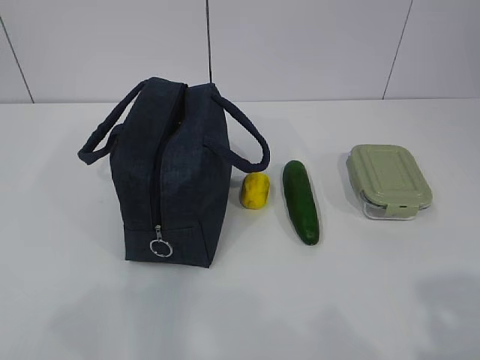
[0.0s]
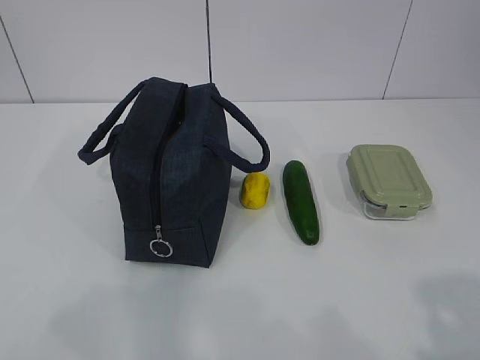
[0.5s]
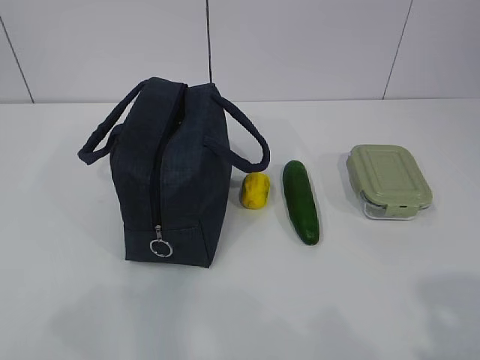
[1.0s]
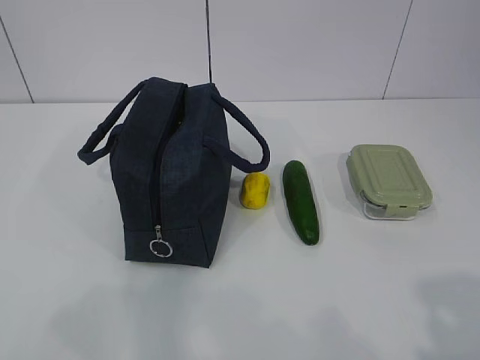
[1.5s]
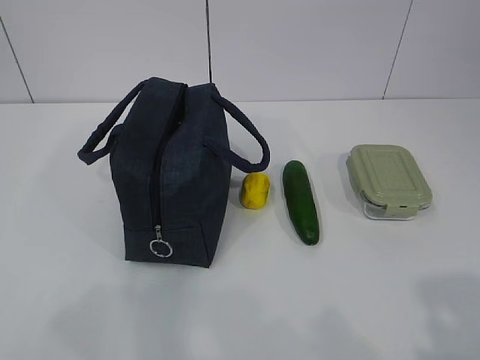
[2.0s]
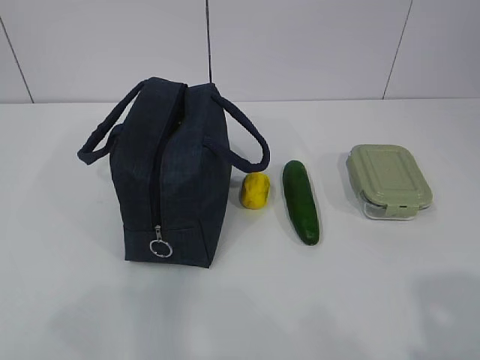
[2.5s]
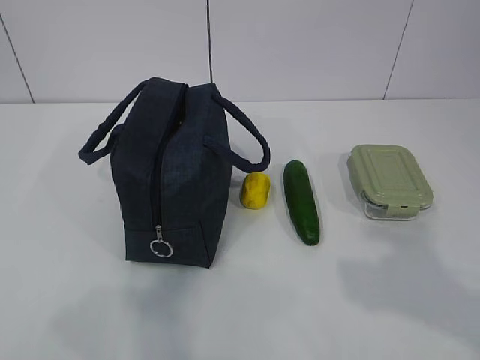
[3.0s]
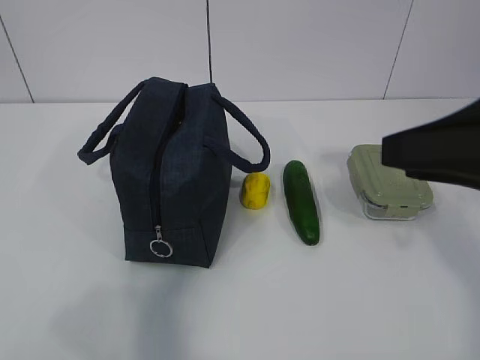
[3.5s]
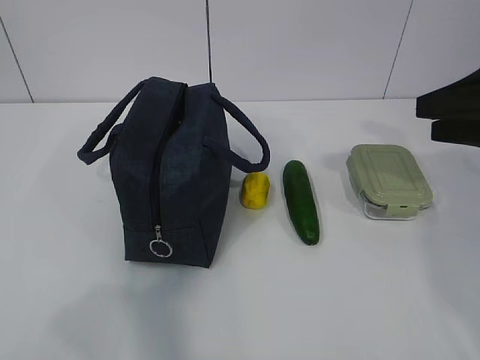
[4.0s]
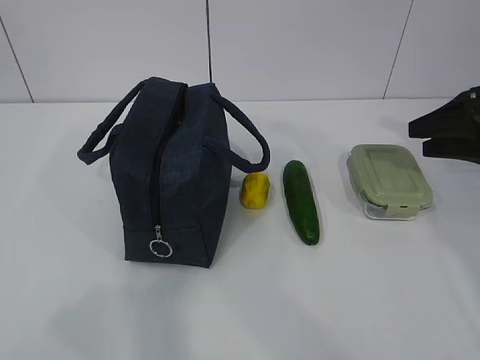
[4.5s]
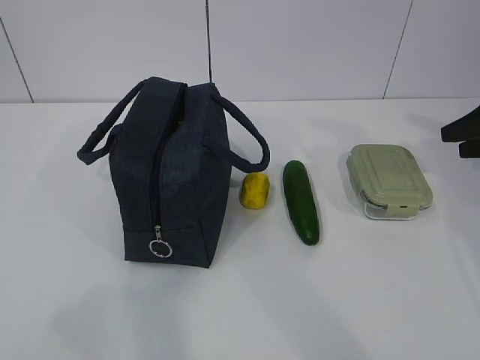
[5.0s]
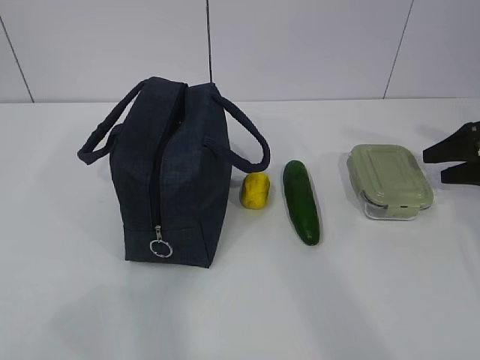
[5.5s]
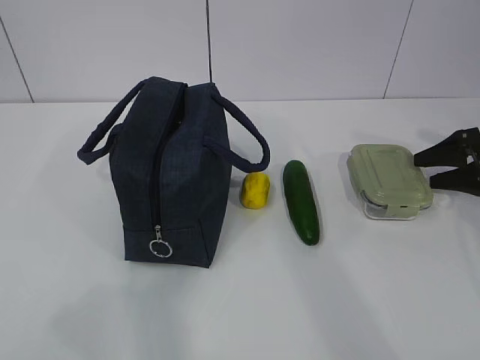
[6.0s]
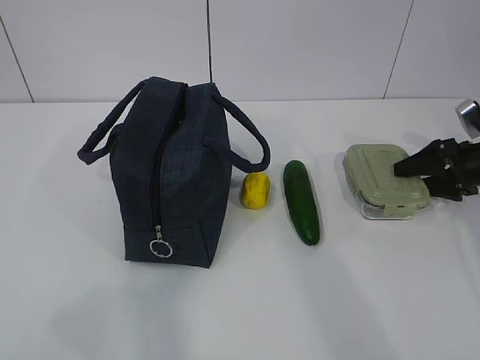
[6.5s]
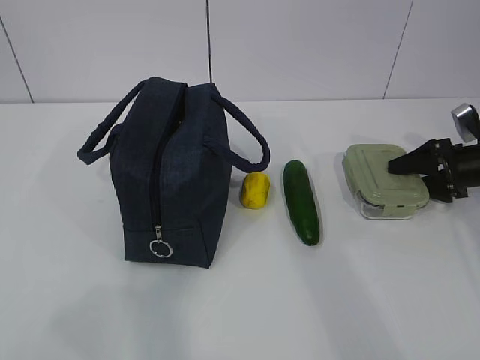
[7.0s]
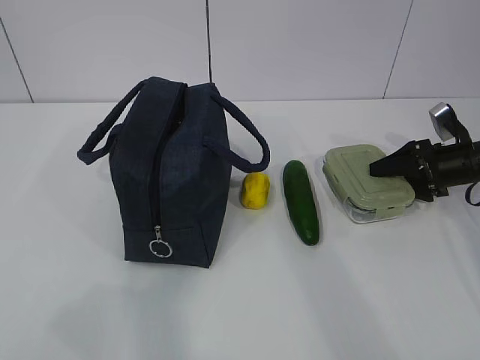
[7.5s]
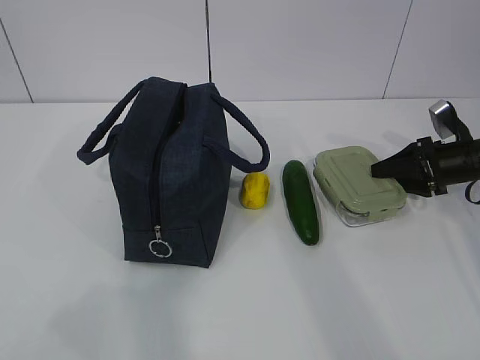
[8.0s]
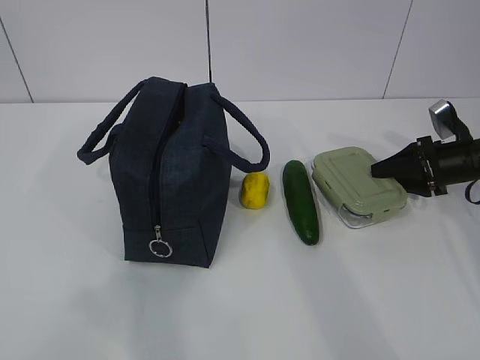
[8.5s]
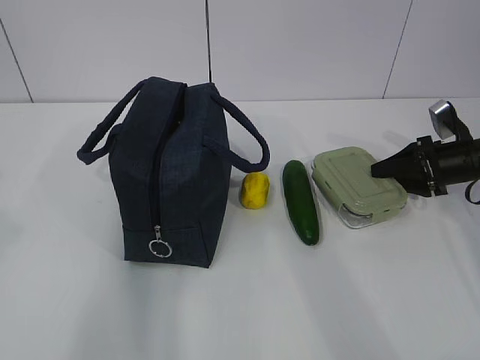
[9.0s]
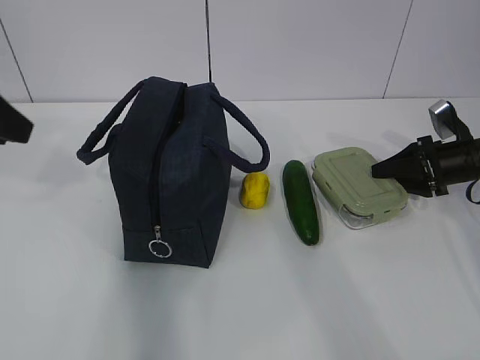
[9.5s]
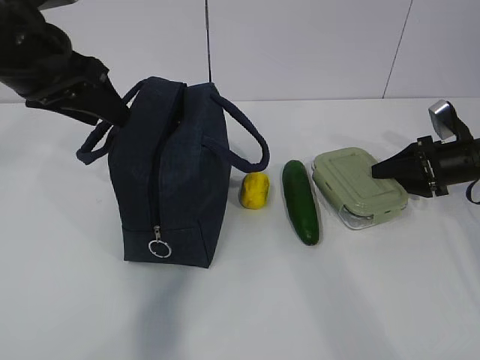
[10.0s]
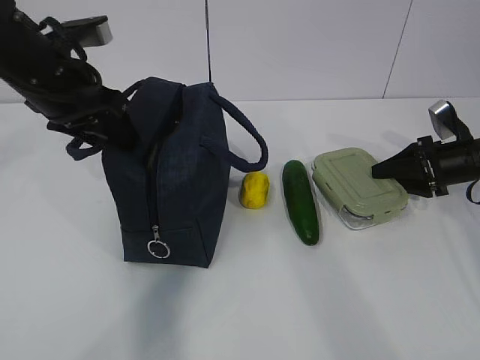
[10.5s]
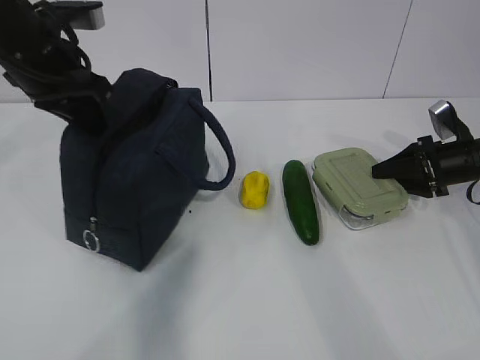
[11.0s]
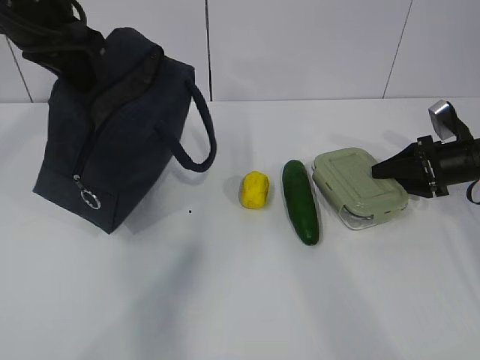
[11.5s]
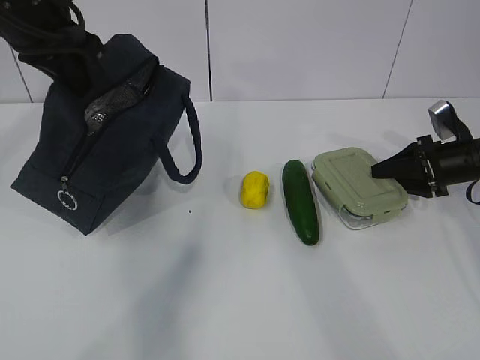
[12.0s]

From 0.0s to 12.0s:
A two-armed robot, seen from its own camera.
Step, from 0.0s to 10.5s: Grab the lunch box with your right hand.
From 2.0s to 4.0s: The right gripper goes approximately 30 cm forward.
From 4.0s to 6.0s: The right gripper travels downward, forward and to the right by about 25 cm.
From 6.0s to 8.0s: The right gripper shifts about 5 cm to the left, and closes up.
From 8.0s to 10.0s: The left gripper travels forward by roughly 35 cm, and opens up.
From 10.0s to 12.0s: The left gripper ends up roughly 5 cm from where it was, and closes up.

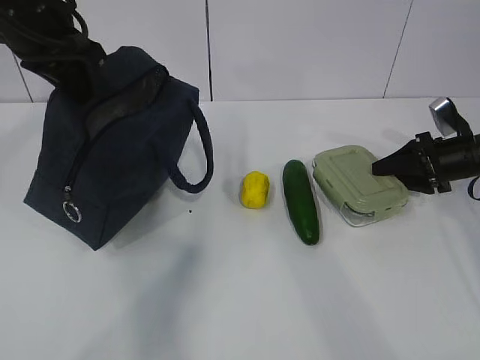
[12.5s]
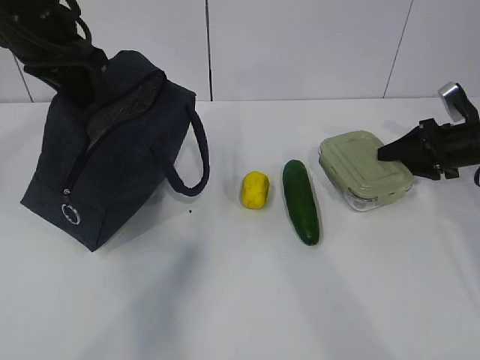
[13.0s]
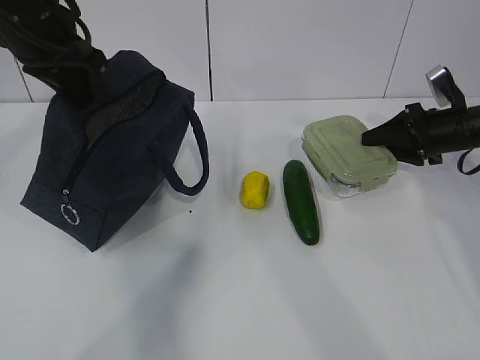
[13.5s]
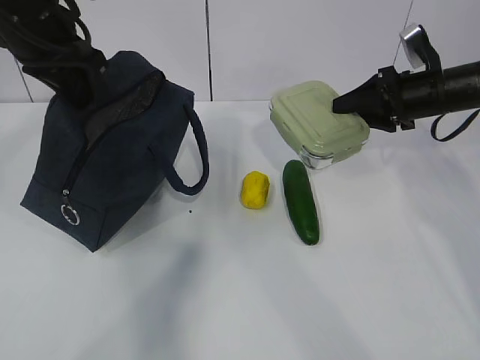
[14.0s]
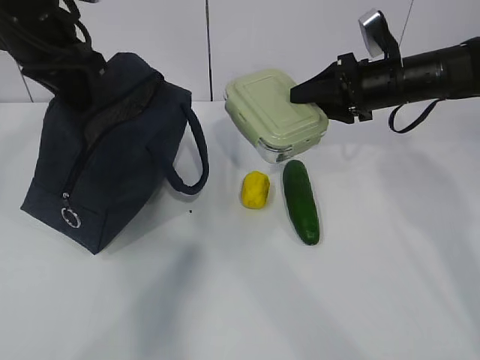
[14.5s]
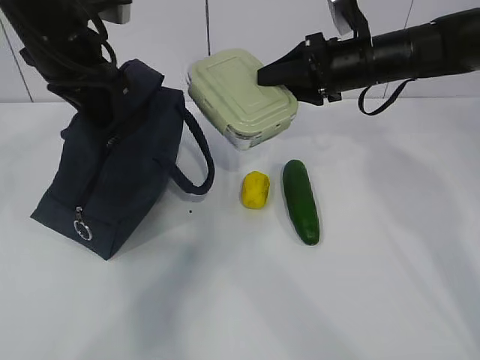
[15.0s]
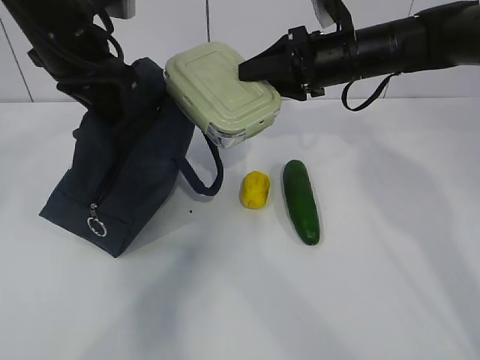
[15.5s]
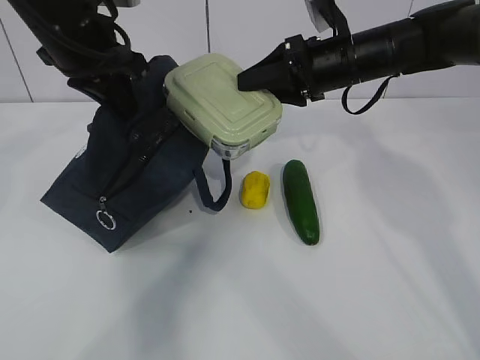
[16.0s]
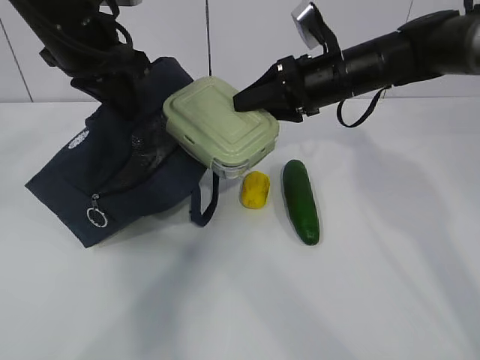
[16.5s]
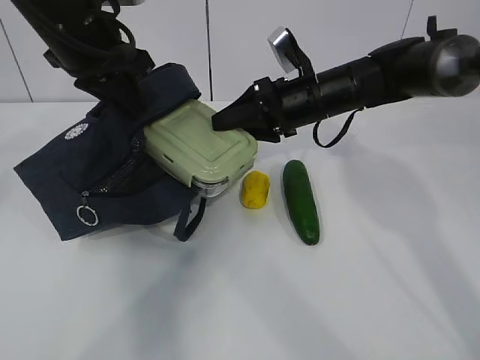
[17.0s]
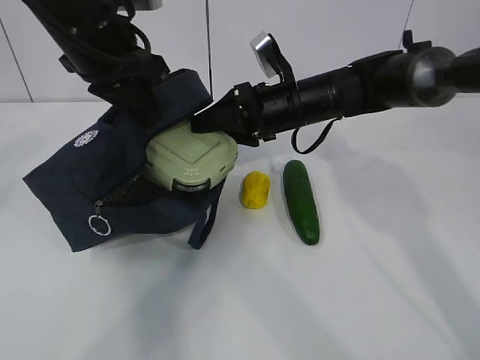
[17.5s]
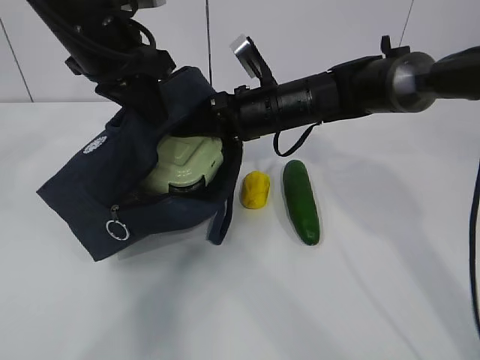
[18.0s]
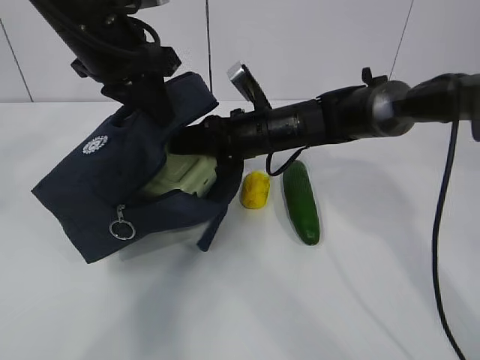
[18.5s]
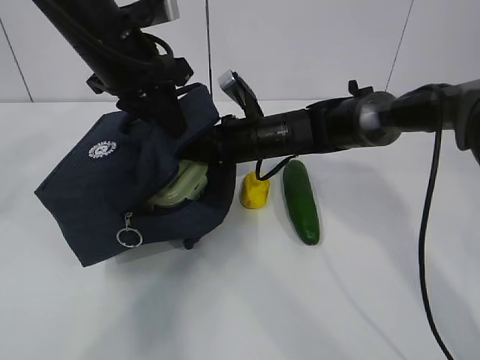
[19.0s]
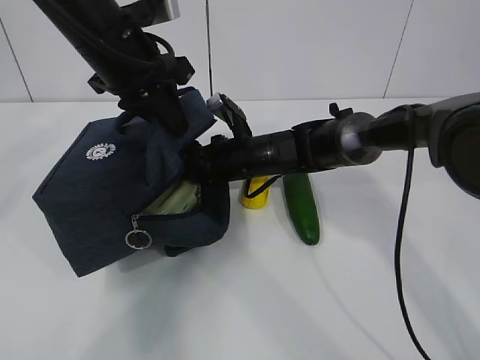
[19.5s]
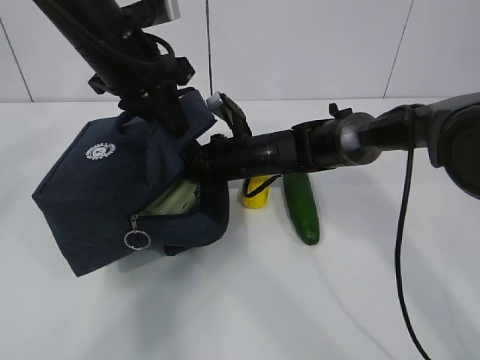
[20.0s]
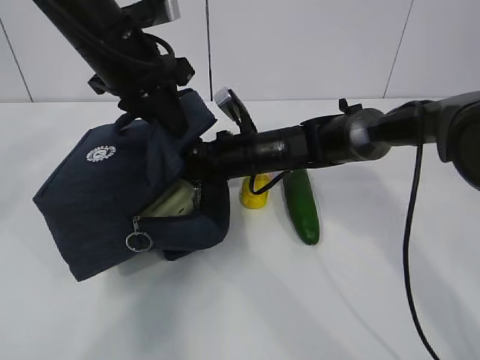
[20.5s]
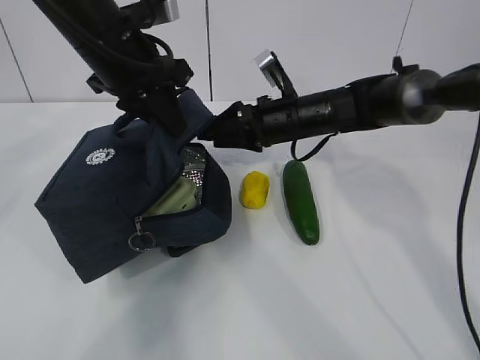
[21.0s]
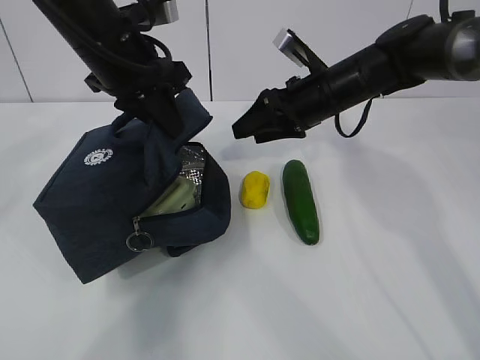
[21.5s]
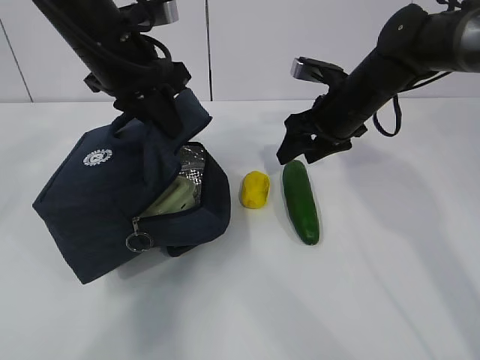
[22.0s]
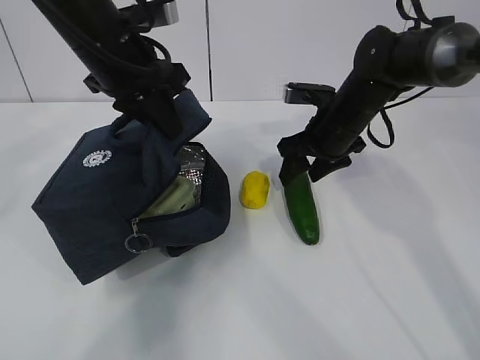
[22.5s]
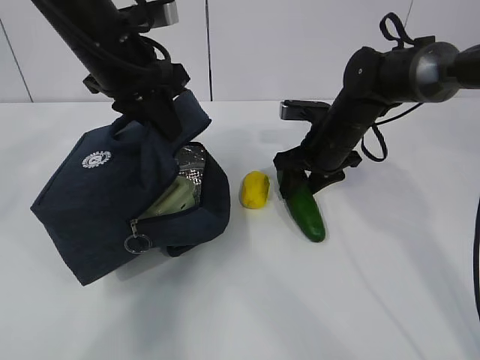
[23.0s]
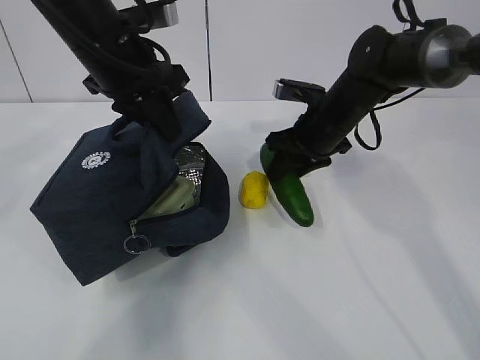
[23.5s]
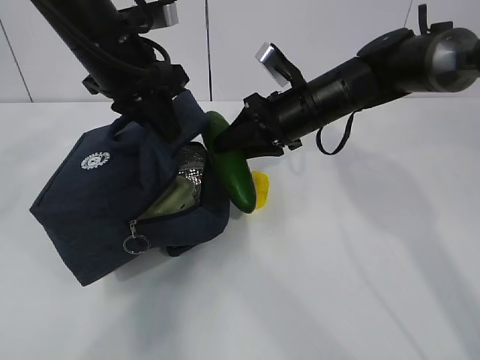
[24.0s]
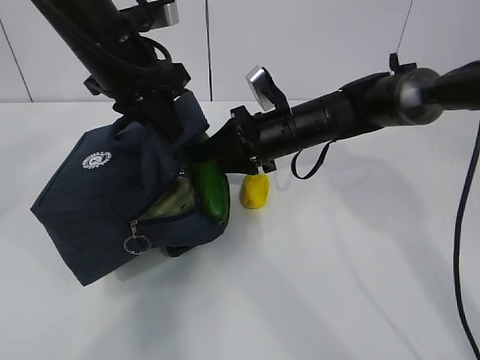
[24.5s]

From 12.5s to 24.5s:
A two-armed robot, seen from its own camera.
Step, from 13.5s to 17.0s: Place it into the bag with your right hand.
Step, from 17.5s to 19.0s: Grab the cucumber with your right hand.
Step, from 19.5s to 21.0s: Place it into the bag with your right hand.
Step, from 21.5s to 24.5s: Grab the lemon with your right hand.
From 12.5s to 14.5s: The right gripper goes roughly 15 cm to the left and upward.
From 14.5s to 16.5s: The right gripper heads to the left, covering about 10 cm.
From 16.5s to 18.5s: The right gripper moves to the left and downward, approximately 10 cm.
From 18.5s to 20.5s: The grippers move only a little.
From 20.5s to 22.5s: The right gripper goes about 10 cm to the right.
From 22.5s to 24.5s: The right gripper shifts about 5 cm to the left.

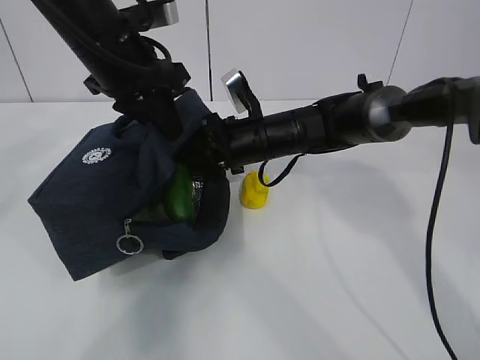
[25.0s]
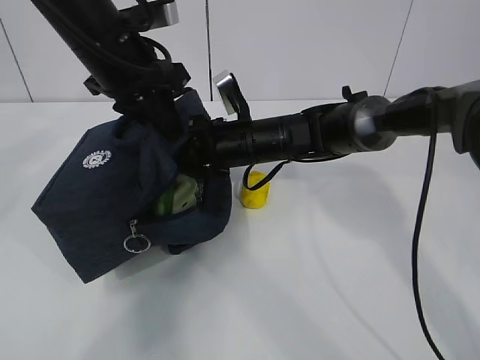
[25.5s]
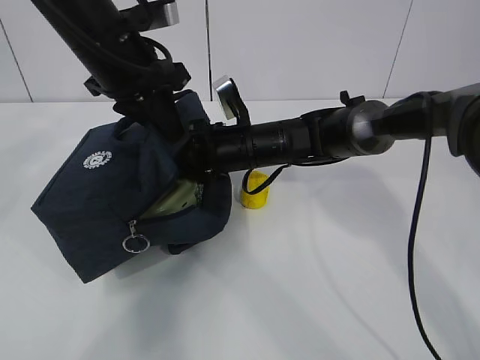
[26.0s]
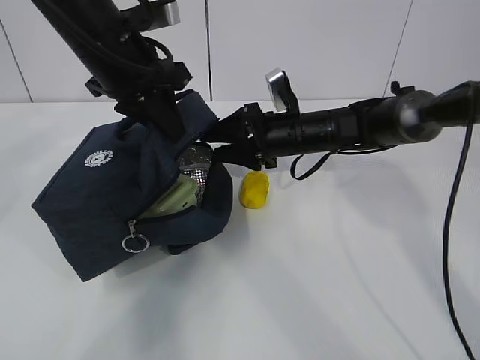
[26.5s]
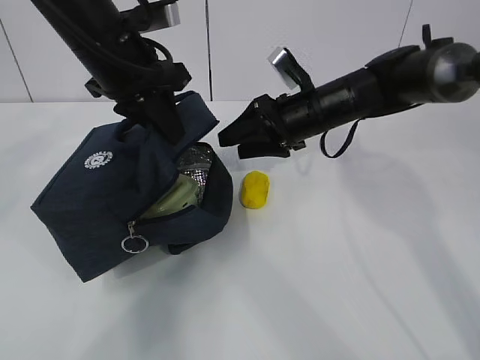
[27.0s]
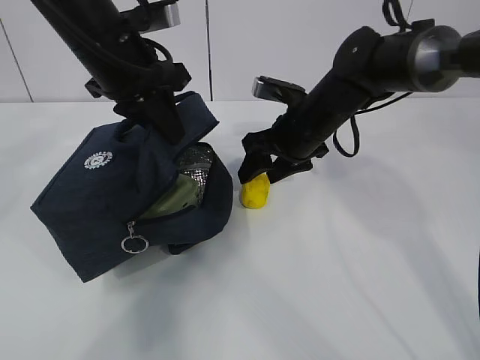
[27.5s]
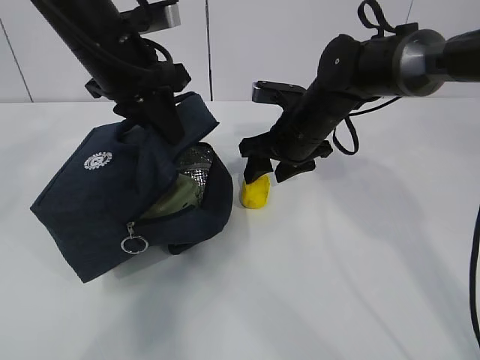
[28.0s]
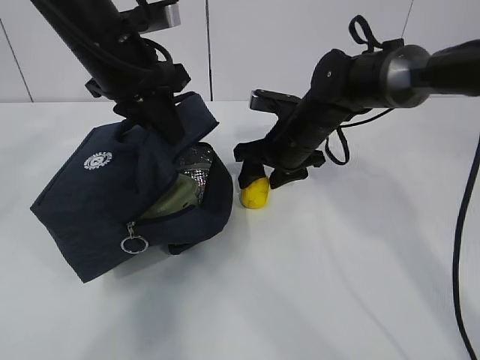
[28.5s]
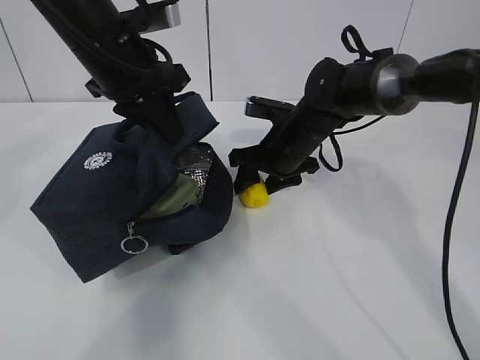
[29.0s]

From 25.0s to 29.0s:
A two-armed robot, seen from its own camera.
Step, from 27.5s to 28.5s: Grab the lunch bag with your right hand.
From 25.0s to 27.0s: The right gripper heads to the right, covering roughly 5 cm.
From 27.0s to 29.0s: The right gripper changes place by about 5 cm.
